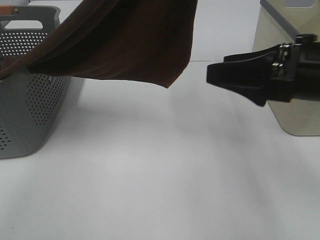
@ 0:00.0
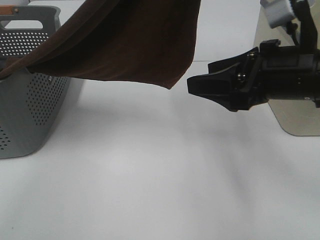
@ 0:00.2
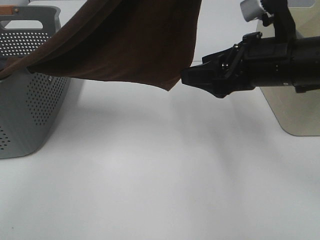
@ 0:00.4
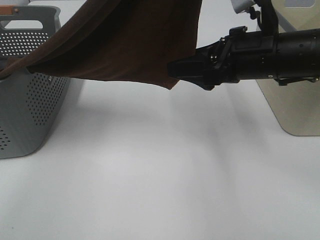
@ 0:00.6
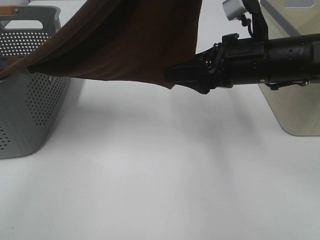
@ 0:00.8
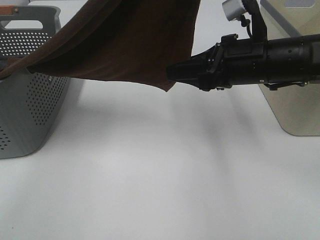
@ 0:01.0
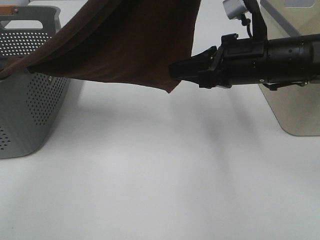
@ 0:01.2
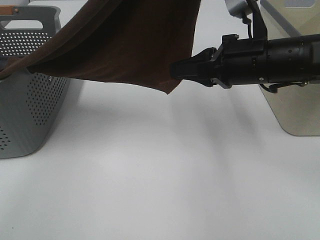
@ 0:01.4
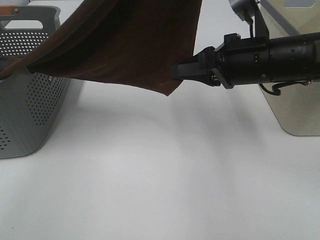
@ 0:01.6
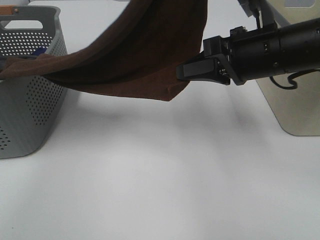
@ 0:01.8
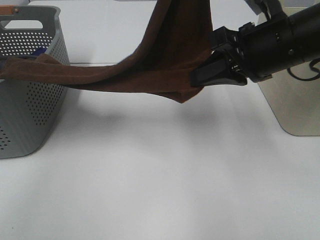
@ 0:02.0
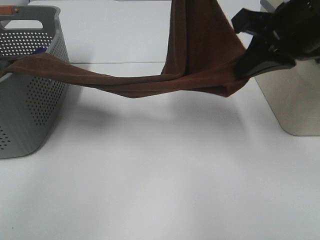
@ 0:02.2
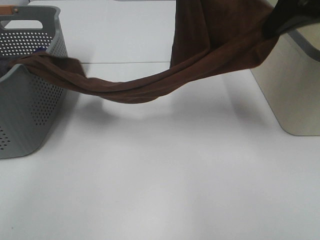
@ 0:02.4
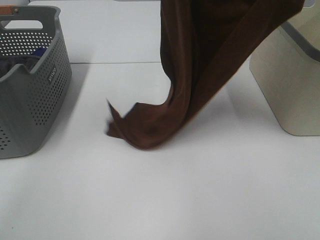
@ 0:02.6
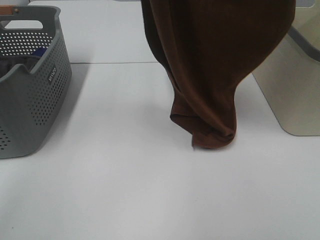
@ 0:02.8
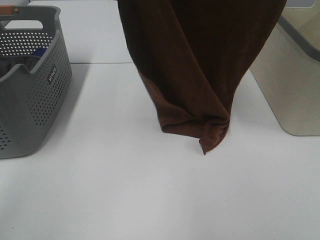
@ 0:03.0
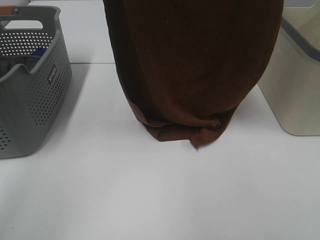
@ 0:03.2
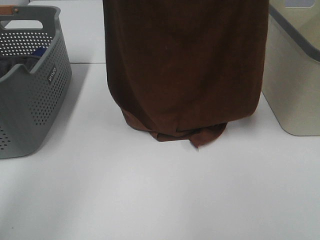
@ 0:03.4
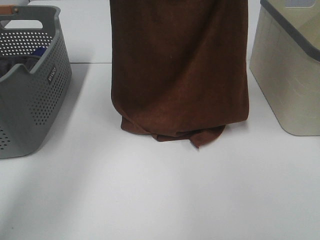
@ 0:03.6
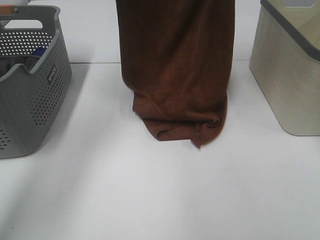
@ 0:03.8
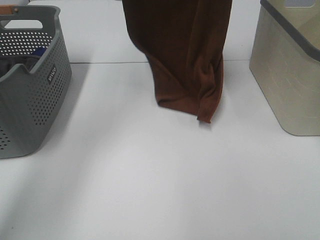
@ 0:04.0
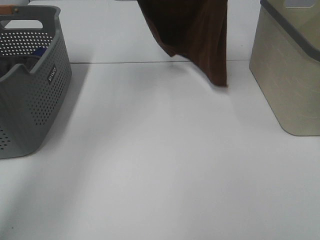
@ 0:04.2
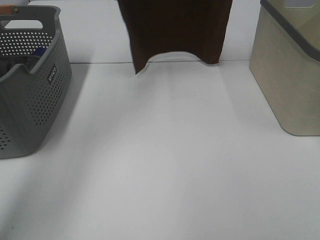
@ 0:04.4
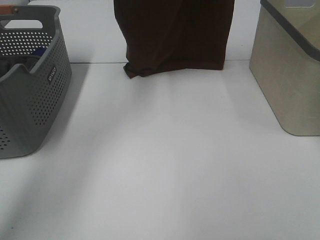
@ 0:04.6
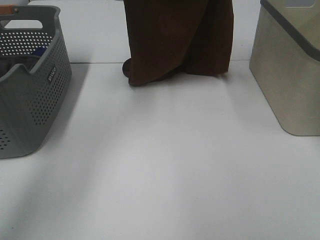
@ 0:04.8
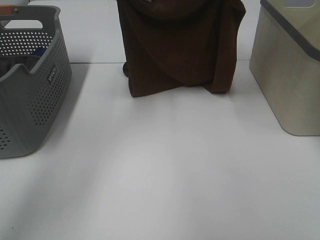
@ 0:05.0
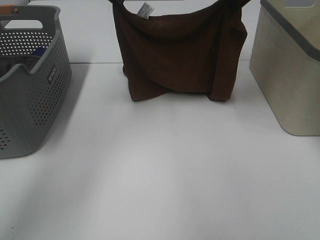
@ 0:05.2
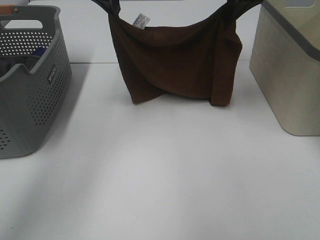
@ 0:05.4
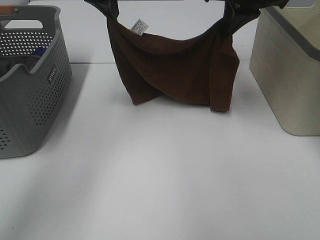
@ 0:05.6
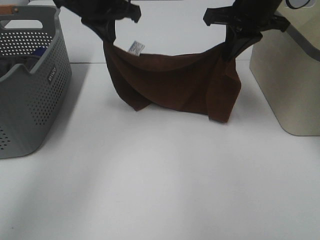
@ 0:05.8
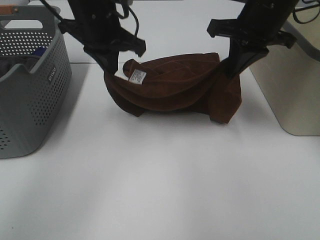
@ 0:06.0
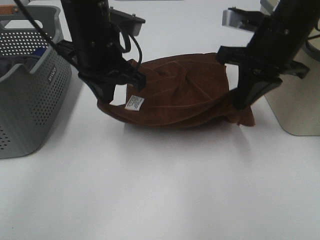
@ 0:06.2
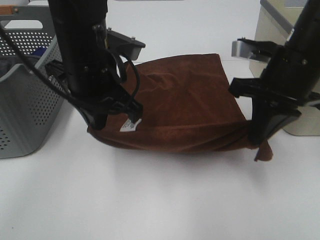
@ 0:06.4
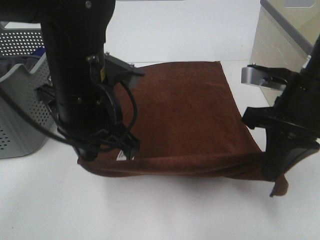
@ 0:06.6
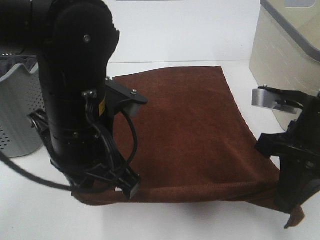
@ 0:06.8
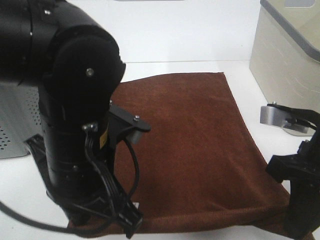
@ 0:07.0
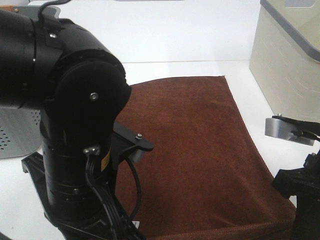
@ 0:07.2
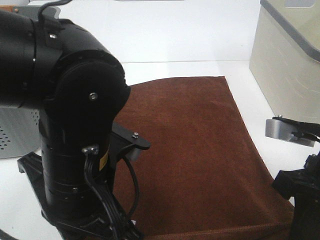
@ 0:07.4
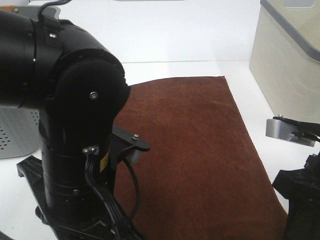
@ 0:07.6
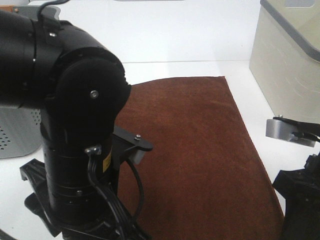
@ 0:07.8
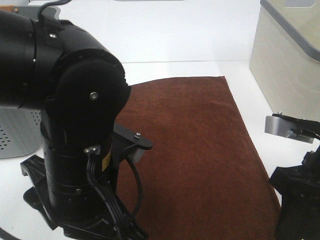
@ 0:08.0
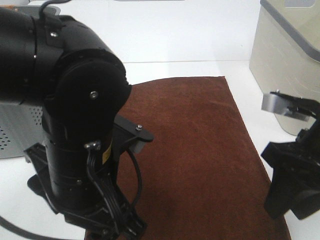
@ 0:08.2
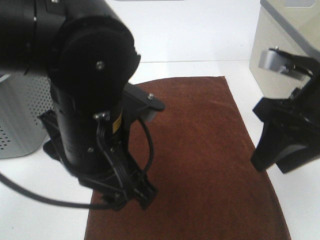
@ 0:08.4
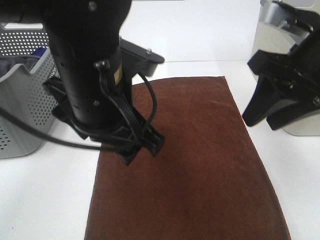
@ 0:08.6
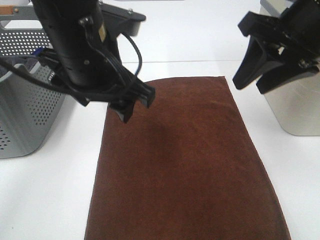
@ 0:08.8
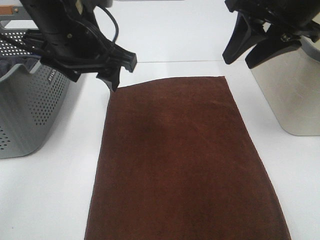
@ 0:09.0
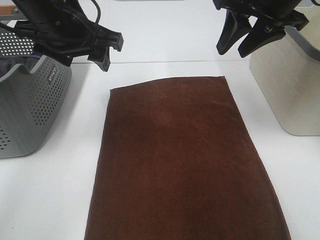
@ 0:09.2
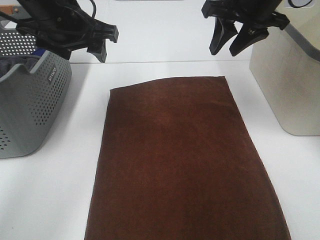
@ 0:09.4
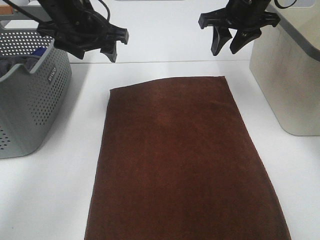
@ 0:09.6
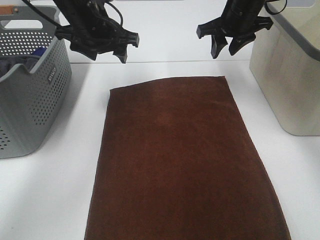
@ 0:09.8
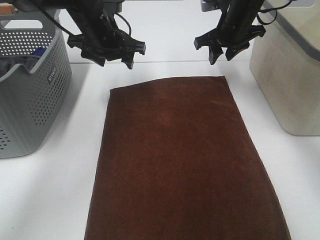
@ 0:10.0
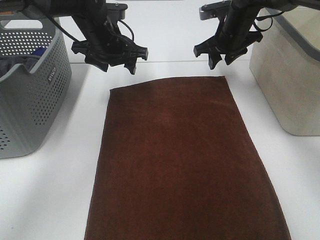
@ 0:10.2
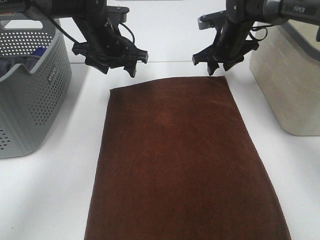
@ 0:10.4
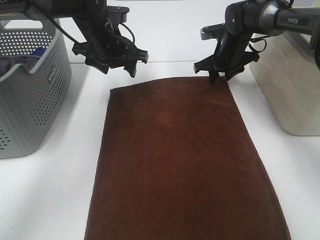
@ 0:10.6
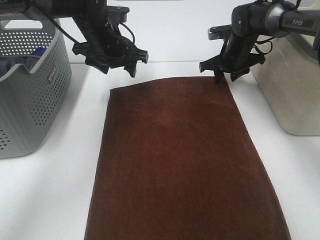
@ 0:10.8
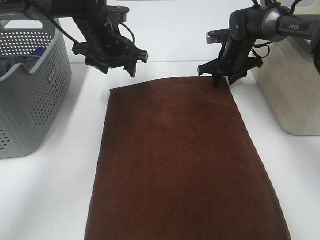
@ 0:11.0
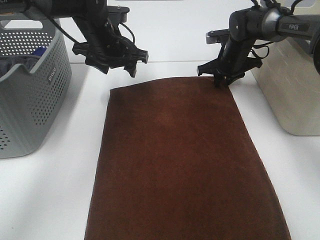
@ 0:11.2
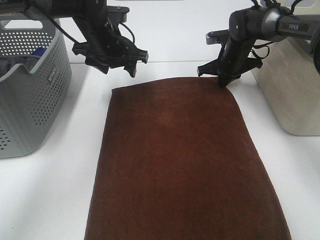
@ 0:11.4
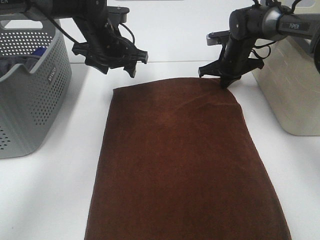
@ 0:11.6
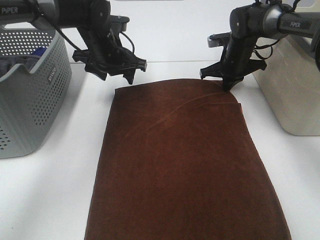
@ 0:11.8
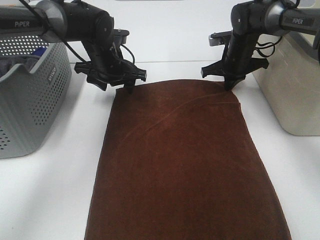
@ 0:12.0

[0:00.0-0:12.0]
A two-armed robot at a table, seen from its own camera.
Task of the whole recording: Remove the towel and place it.
Step, 0:00.2 to 0:03.8: Left hand: spread the brown towel flat on the table.
Step, 0:00.2 to 0:03.8: Right hand: spread the brown towel flat on the table.
Step, 0:04.0 to 0:10.2: Left hand:adjust the brown towel.
Step, 0:04.0 to 0:10.2: Right hand:adjust the brown towel.
0:00.0 to 0:01.6: The right gripper moves forward and to the left, approximately 10 cm, and closes.
0:01.6 to 0:03.0: The right gripper heads upward, covering about 30 cm. Meanwhile the left gripper heads to the left, covering roughly 10 cm, and goes downward and returns, about 10 cm each way.
0:03.0 to 0:04.4: The two grippers go about 15 cm forward.
0:04.4 to 0:06.0: The two grippers go roughly 25 cm downward.
0:06.0 to 0:07.6: The grippers both shift backward by approximately 20 cm. The right gripper opens up. The left gripper opens up.
0:07.6 to 0:09.0: Both grippers travel together forward and upward, approximately 20 cm. The left gripper opens up.
0:09.0 to 0:10.4: Both grippers move forward and downward, roughly 20 cm.
0:10.4 to 0:12.0: The left gripper is displaced downward by roughly 5 cm. The right gripper closes.

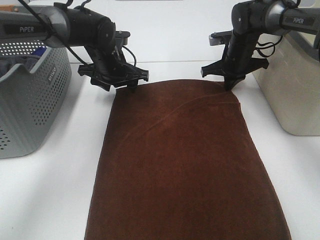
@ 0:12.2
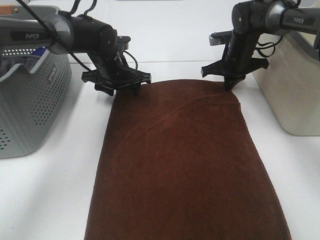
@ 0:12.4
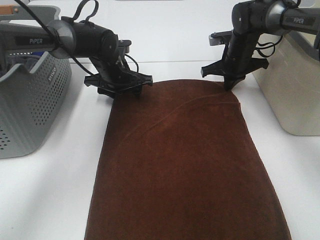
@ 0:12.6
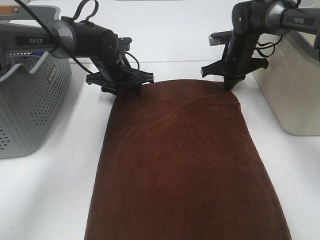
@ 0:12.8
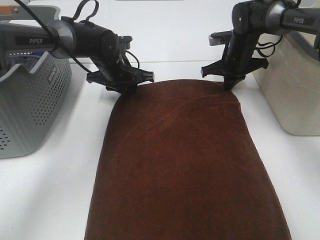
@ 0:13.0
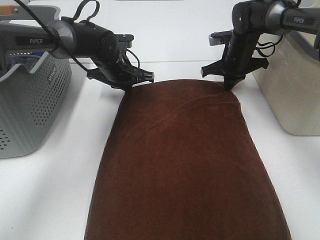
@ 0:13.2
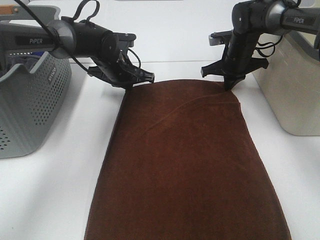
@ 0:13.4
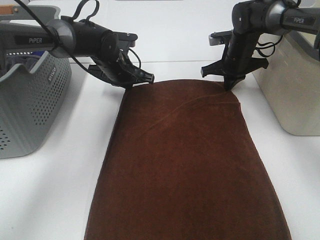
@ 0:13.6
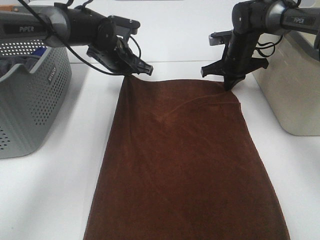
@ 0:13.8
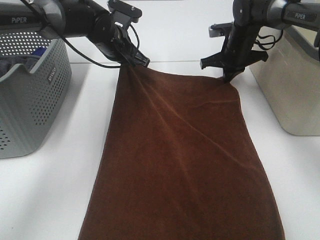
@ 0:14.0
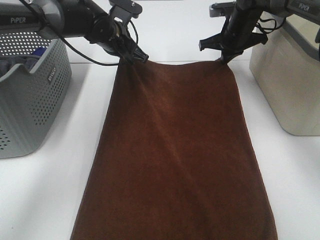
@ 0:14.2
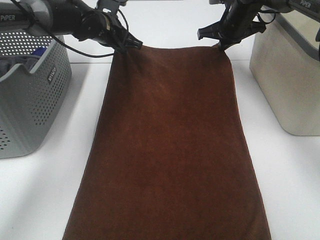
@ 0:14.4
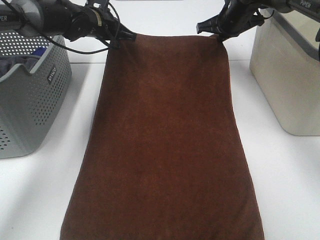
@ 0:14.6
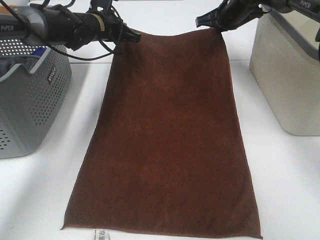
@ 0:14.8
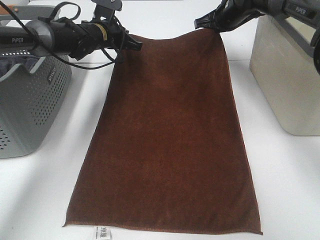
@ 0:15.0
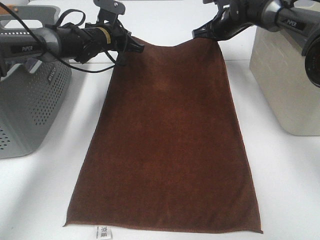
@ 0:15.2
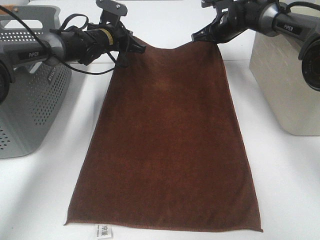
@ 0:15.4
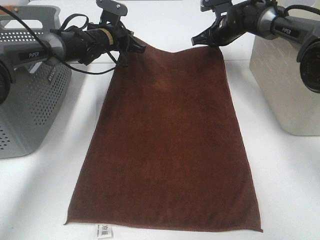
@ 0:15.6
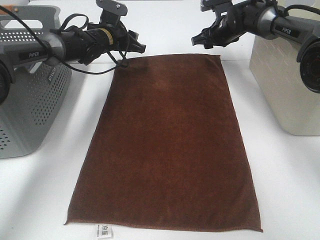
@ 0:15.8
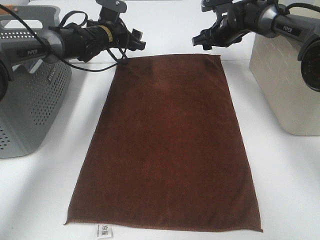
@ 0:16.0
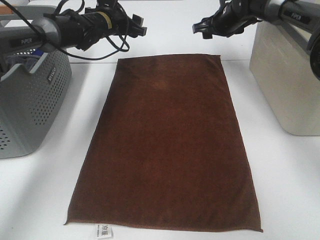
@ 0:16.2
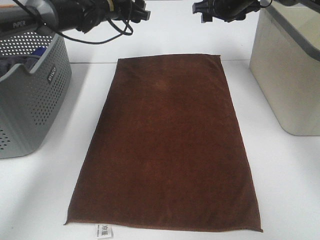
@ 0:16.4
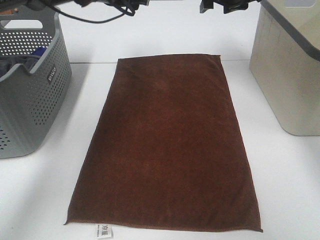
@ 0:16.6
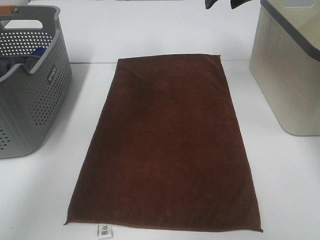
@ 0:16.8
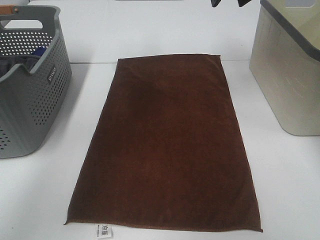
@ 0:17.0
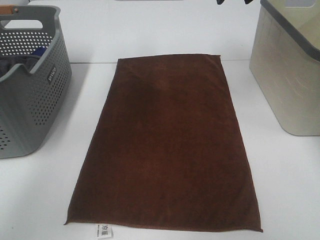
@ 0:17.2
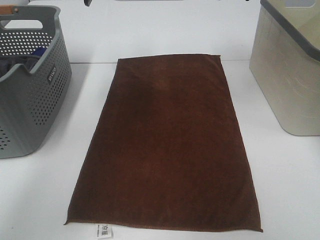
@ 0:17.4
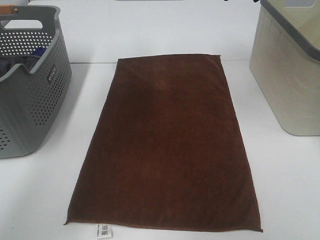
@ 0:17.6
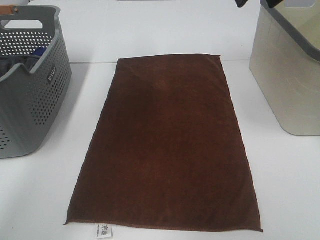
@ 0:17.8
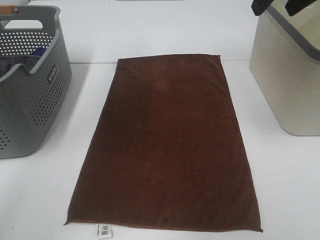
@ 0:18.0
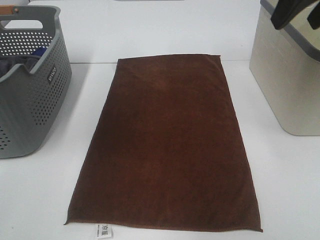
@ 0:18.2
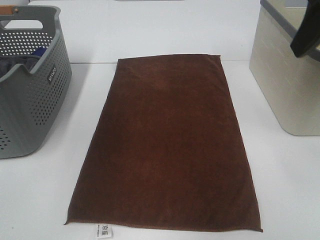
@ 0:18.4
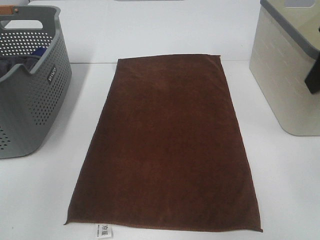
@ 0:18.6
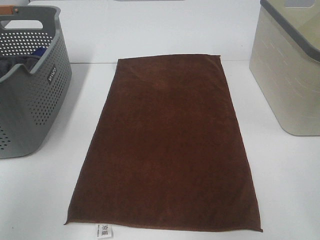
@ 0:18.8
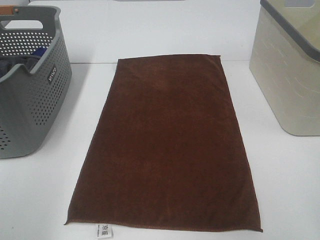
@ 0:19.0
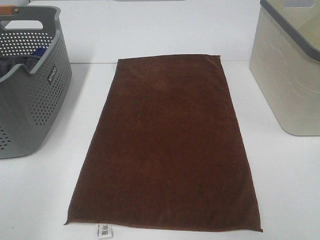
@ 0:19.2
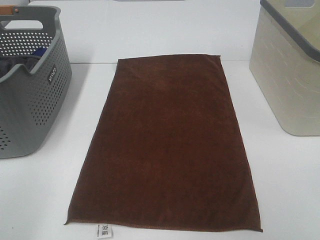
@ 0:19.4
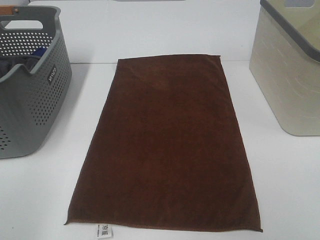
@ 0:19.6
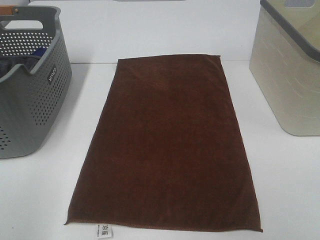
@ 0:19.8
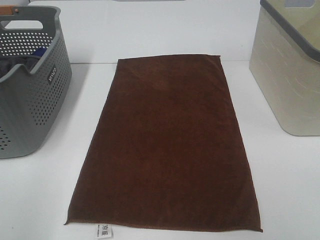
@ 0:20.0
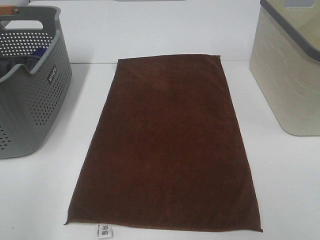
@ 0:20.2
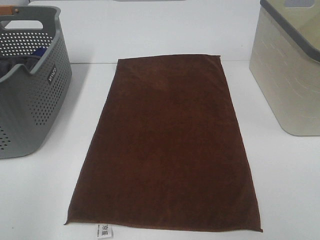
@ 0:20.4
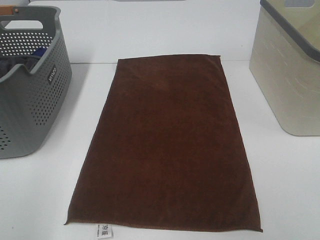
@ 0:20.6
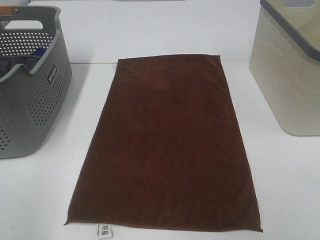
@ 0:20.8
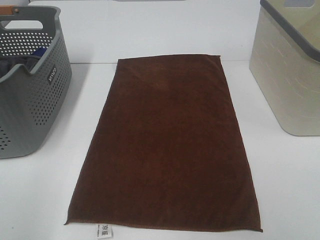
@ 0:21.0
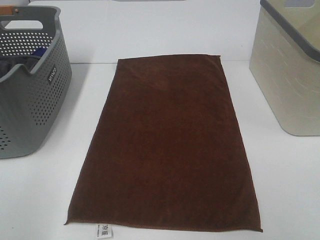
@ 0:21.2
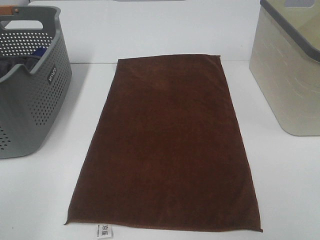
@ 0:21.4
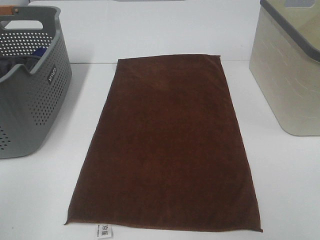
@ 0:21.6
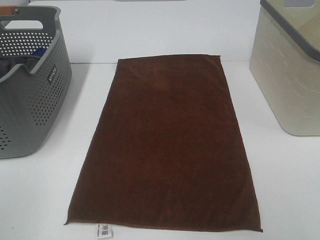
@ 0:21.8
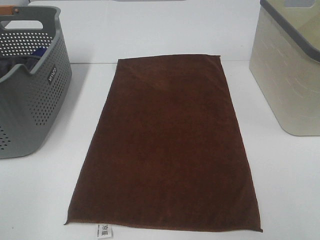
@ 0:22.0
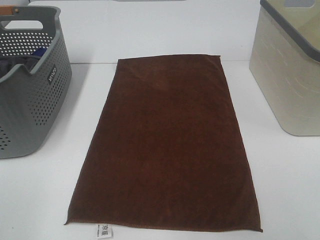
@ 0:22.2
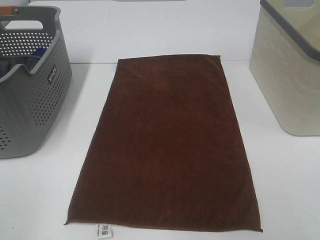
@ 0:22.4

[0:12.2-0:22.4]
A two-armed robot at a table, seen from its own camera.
Task of the whole recording: Remove the towel and place it.
0:12.2 to 0:13.6: The left gripper closes its fingers.
0:13.6 to 0:15.2: The grippers both shift forward by roughly 5 cm.
0:15.2 to 0:16.6: Both grippers travel together upward, approximately 10 cm. The left gripper opens its fingers, while the right gripper opens its fingers.
0:16.6 to 0:18.0: The left gripper travels upward and backward by about 25 cm, while the right gripper travels backward and upward by roughly 25 cm.
0:18.0 to 0:19.4: The left gripper moves backward, downward and to the left, about 35 cm, while the right gripper is displaced backward by roughly 30 cm.
